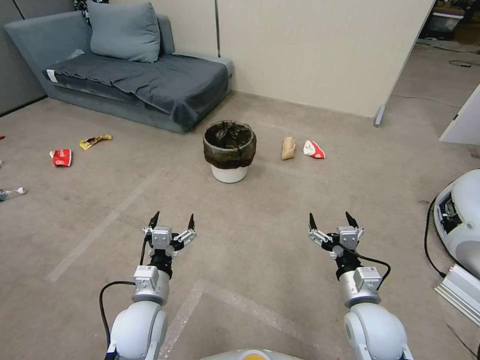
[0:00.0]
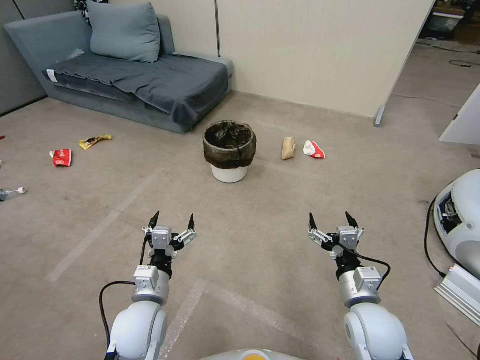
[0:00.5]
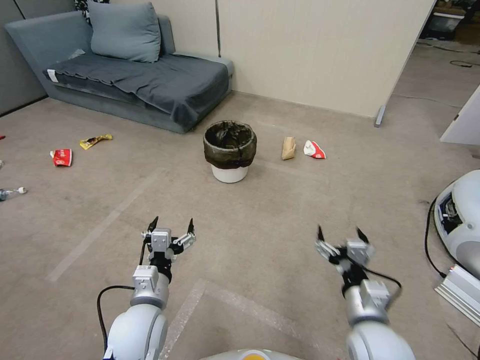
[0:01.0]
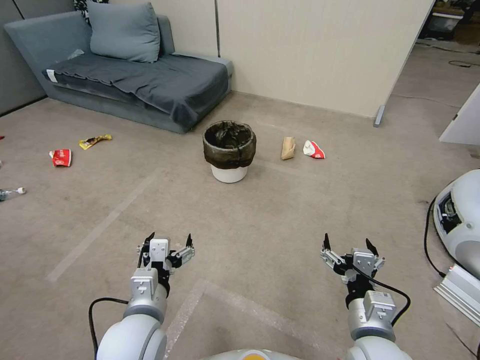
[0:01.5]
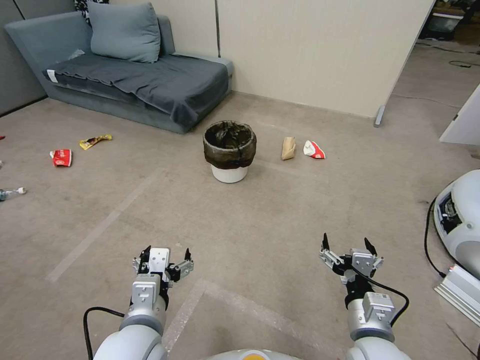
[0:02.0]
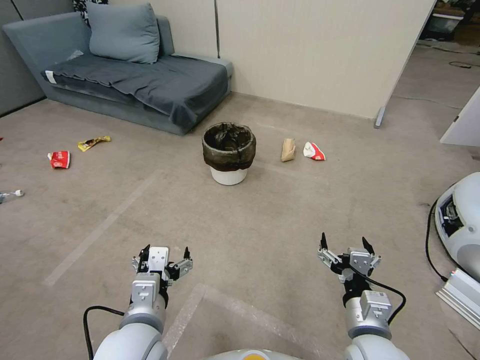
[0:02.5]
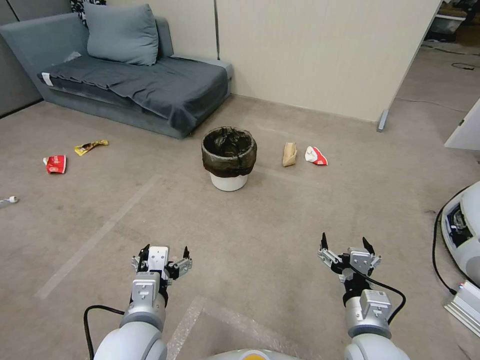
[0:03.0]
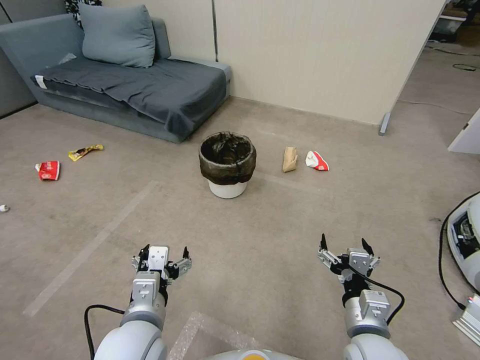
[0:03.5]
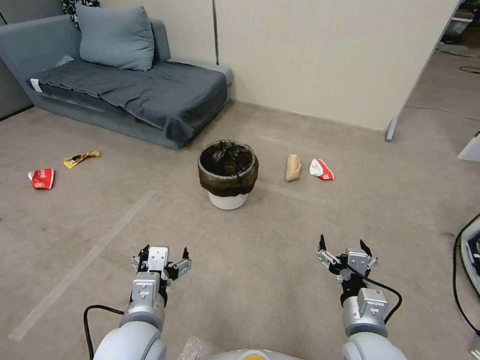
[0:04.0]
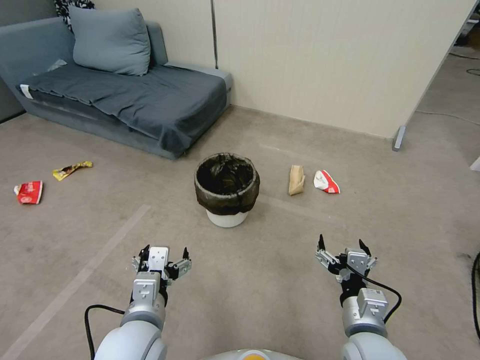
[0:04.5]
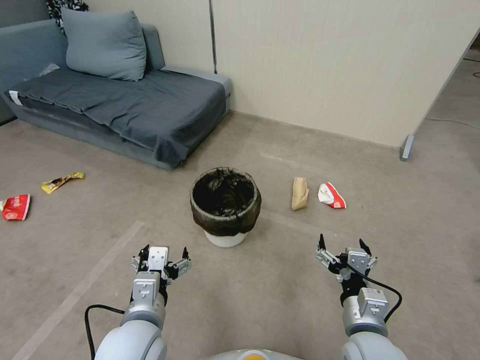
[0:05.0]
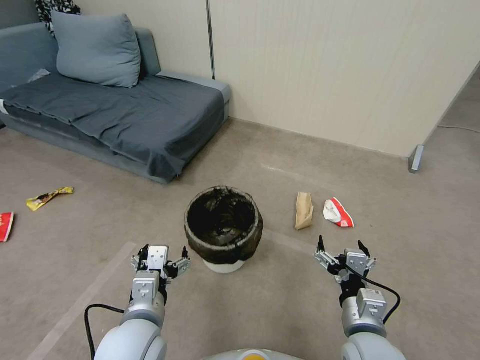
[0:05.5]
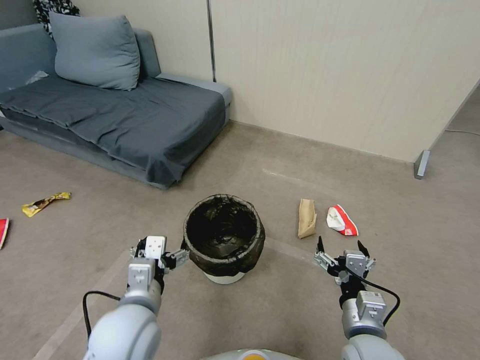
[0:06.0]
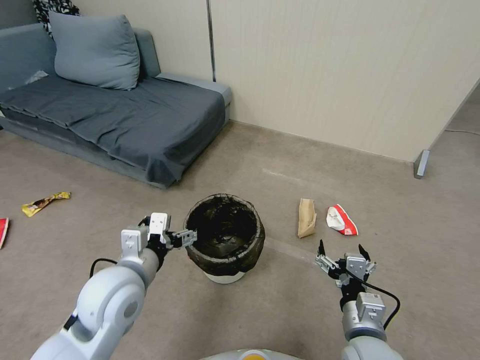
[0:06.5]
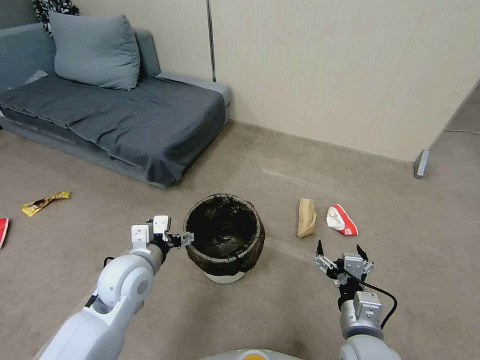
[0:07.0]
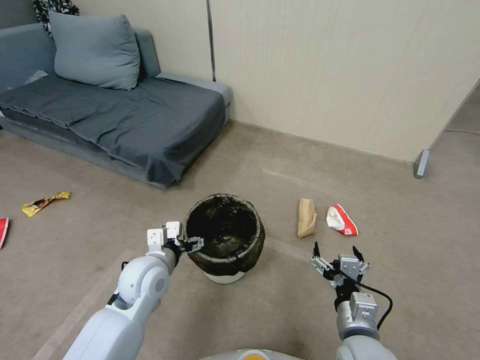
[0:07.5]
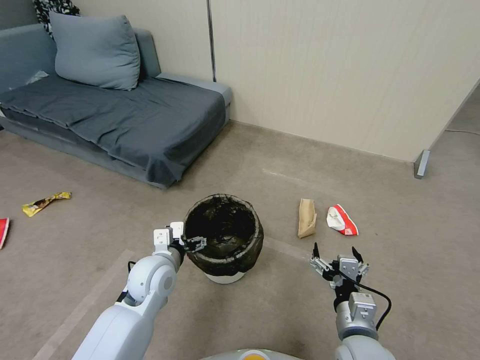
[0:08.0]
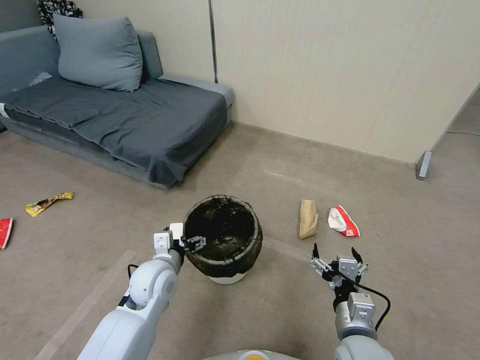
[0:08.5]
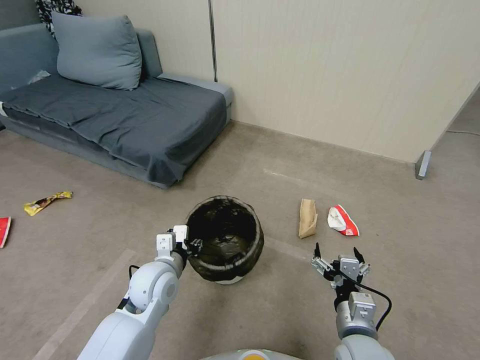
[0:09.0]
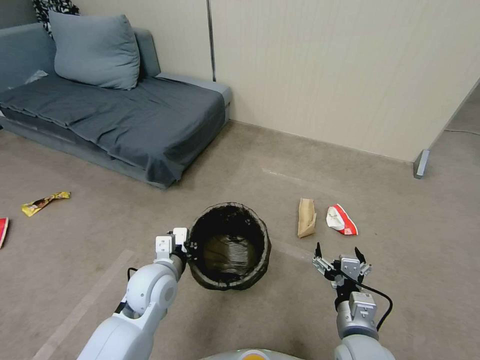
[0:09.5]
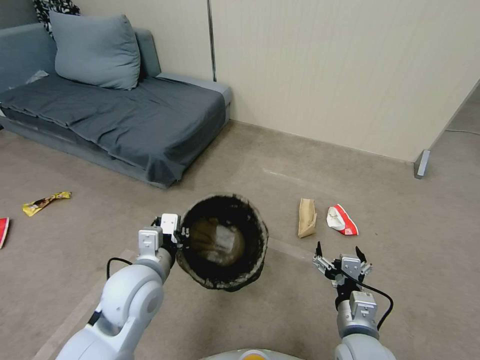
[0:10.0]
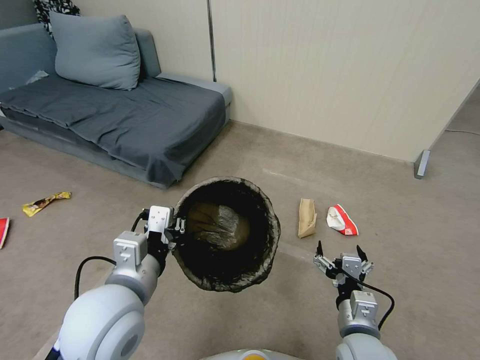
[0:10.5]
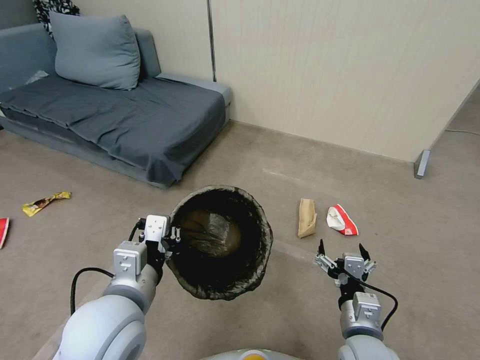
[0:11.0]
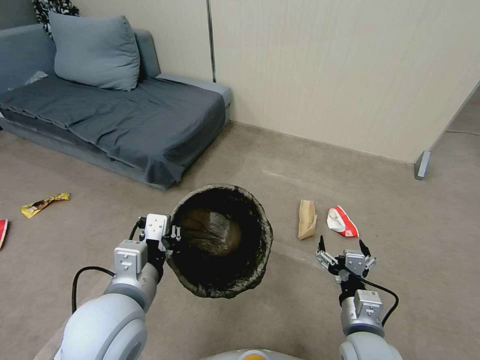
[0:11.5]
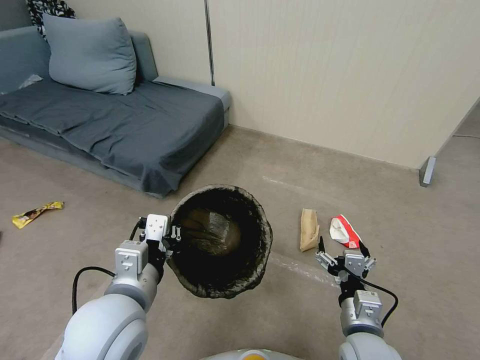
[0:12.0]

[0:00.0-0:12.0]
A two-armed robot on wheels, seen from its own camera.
Task of the whole recording: Pick up the trash bin, then pick up the garbage from the floor and place it into the trash bin.
0:06.0 to 0:08.0: The left gripper travels forward and downward by roughly 15 cm.
0:08.0 to 0:10.0: The left gripper heads upward and backward, covering about 10 cm, and closes.
0:10.0 to 0:12.0: The left gripper heads backward and upward, covering some 10 cm.

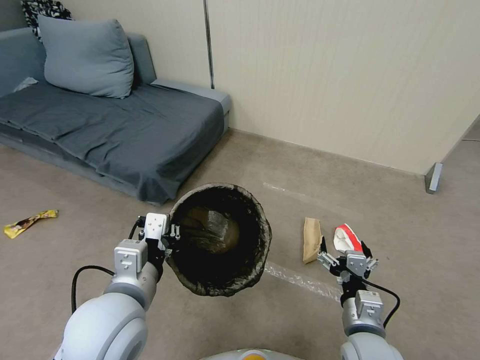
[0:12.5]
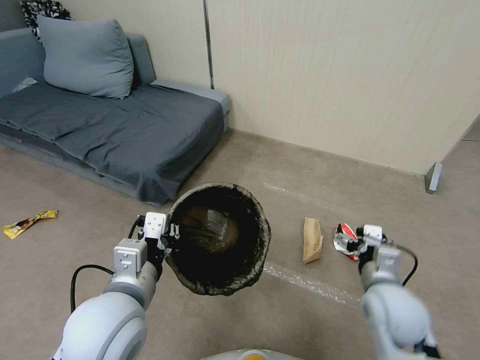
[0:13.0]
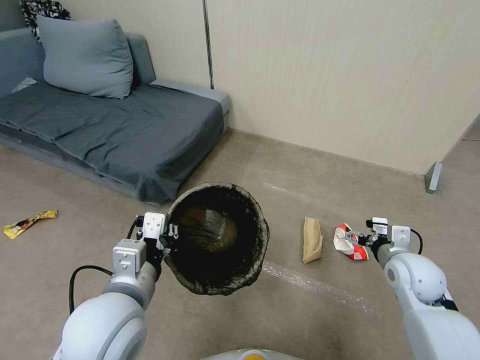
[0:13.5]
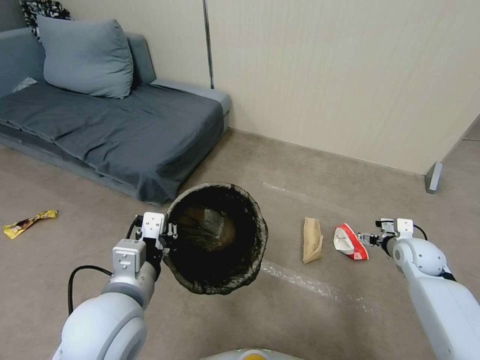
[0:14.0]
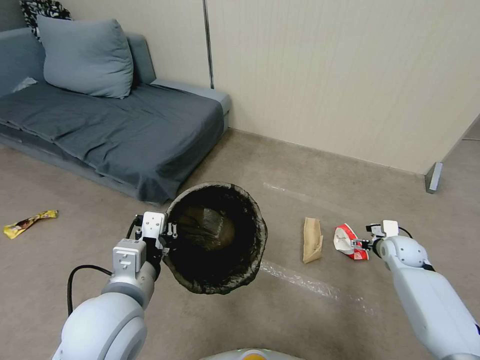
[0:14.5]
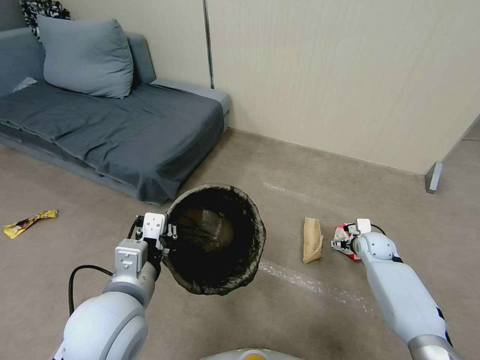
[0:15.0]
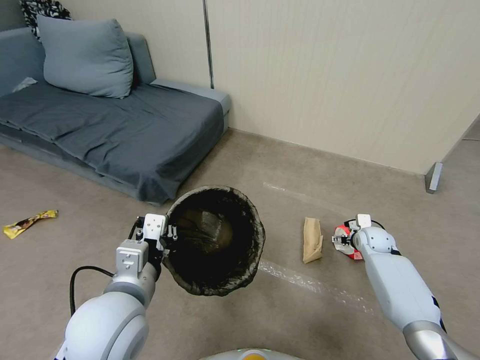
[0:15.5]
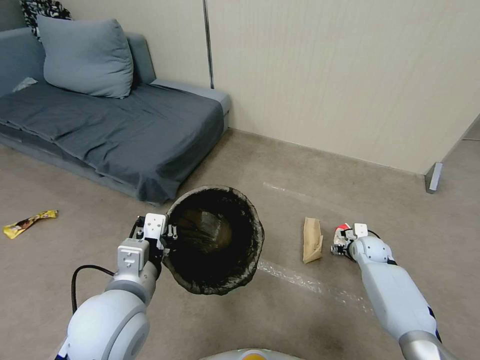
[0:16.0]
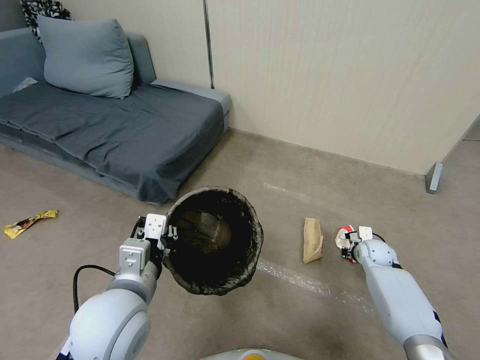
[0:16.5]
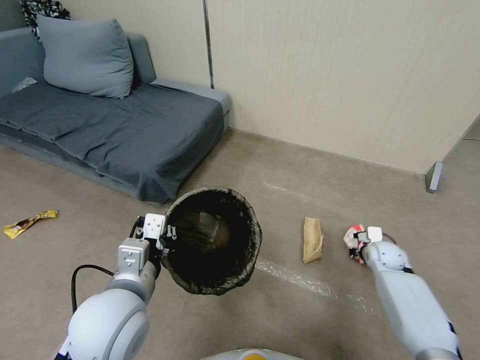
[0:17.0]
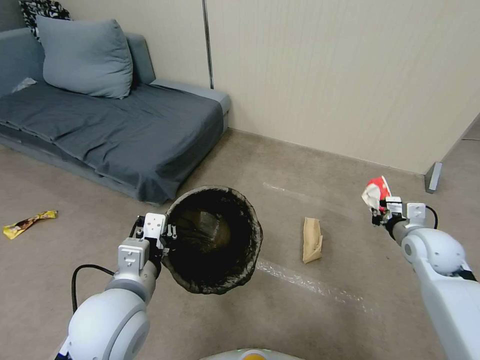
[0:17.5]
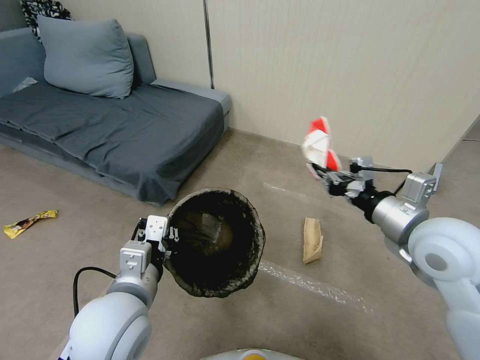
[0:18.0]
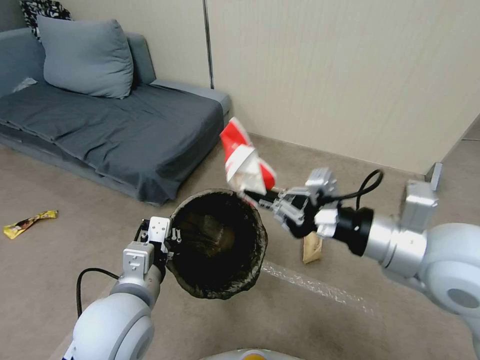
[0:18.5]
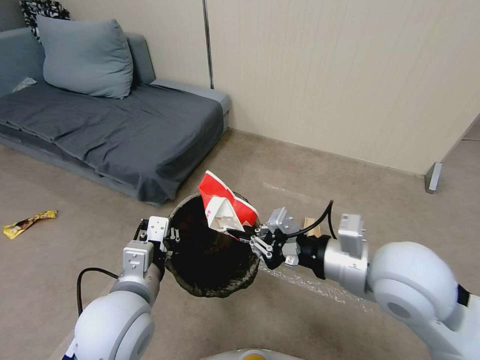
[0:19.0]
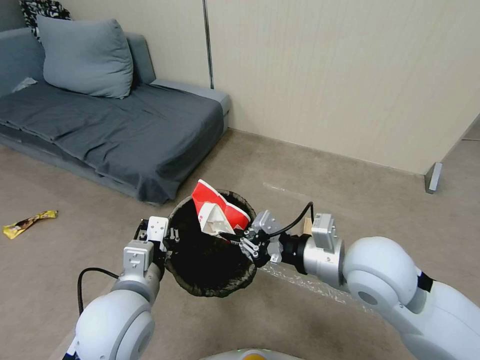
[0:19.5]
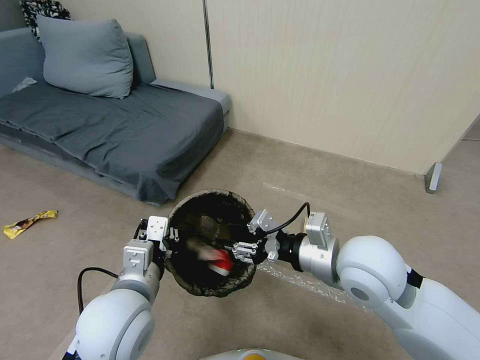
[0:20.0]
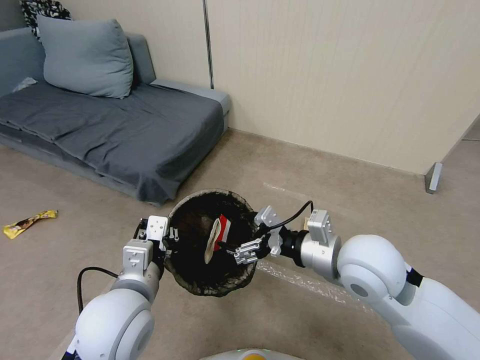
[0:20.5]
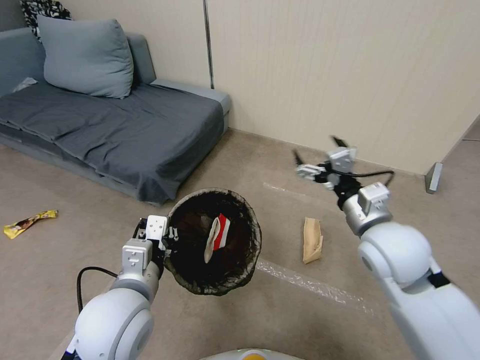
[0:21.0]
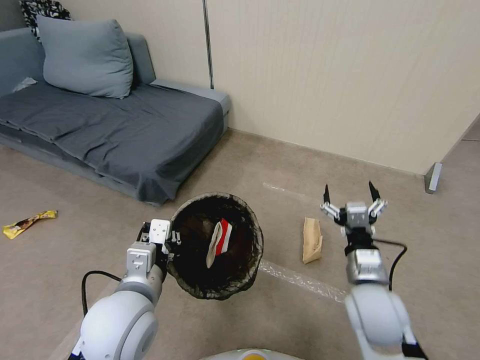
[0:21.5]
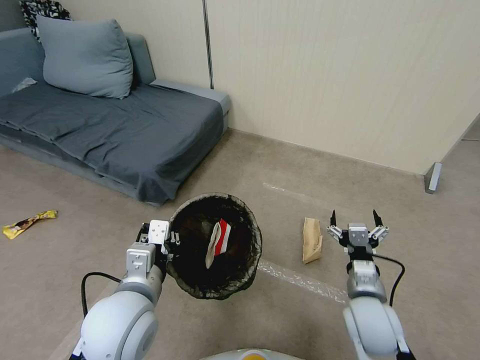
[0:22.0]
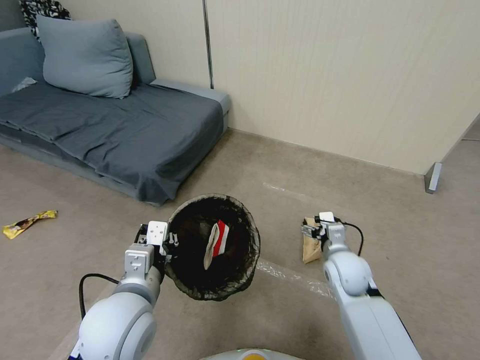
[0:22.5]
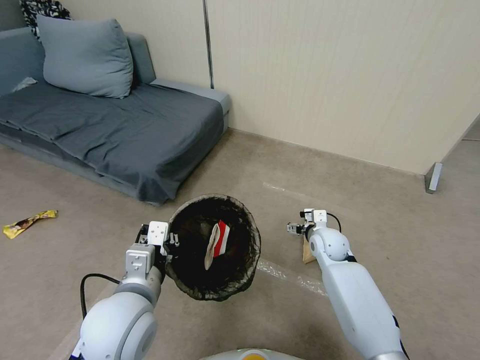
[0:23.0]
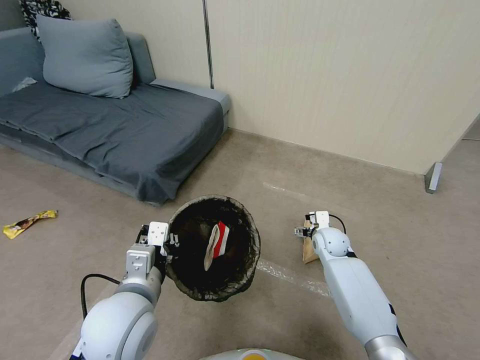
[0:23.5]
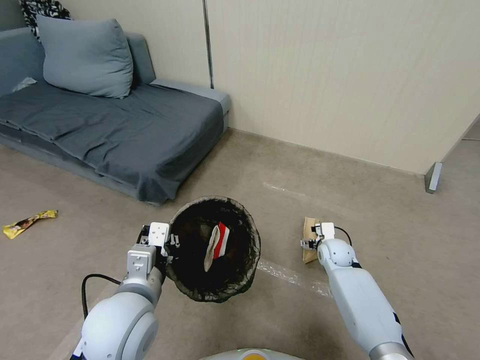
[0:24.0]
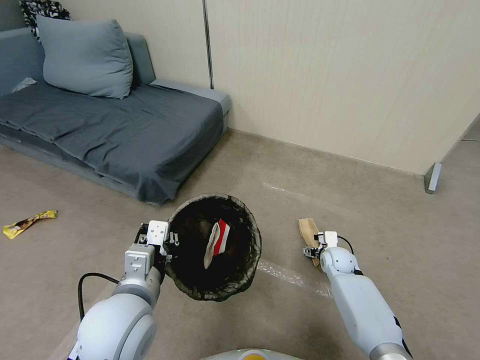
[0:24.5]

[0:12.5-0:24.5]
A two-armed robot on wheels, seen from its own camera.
Task of the whole recording: Pick up the trash bin, then pick up the garbage from the floor and place it into the trash bin.
0:12.5 to 0:14.5: The right gripper heads forward and to the right, covering roughly 30 cm.
0:14.5 to 0:16.5: The right gripper is displaced downward by roughly 5 cm, and closes.
0:16.5 to 0:18.5: The right gripper travels upward and backward by roughly 40 cm.
0:18.5 to 0:20.5: The right gripper moves downward and to the left, about 10 cm, and opens.
0:20.5 to 0:22.5: The right gripper shifts approximately 20 cm downward.
0:22.5 to 0:24.5: The right gripper goes approximately 15 cm downward and forward.

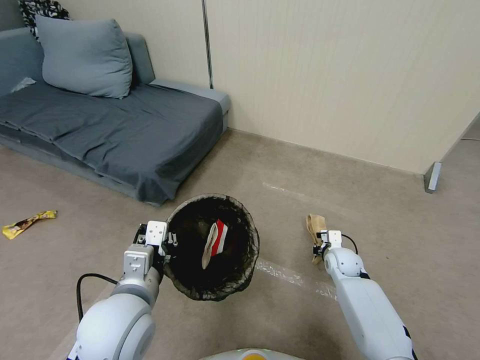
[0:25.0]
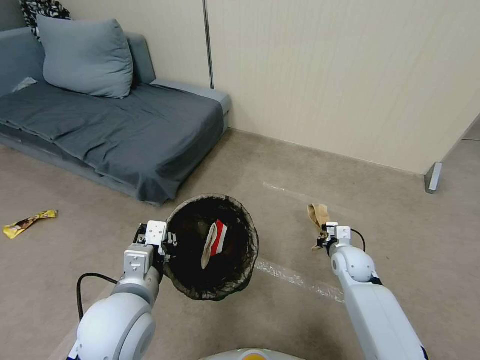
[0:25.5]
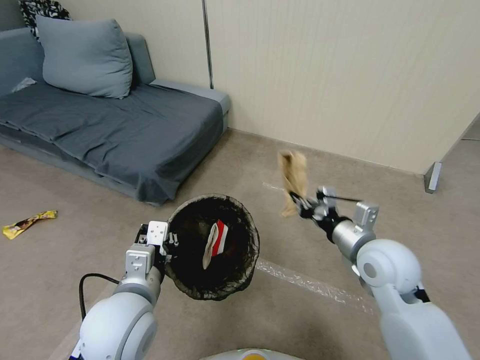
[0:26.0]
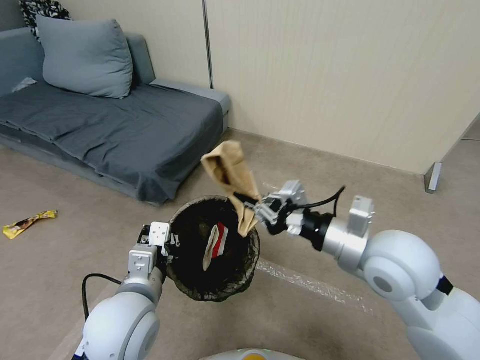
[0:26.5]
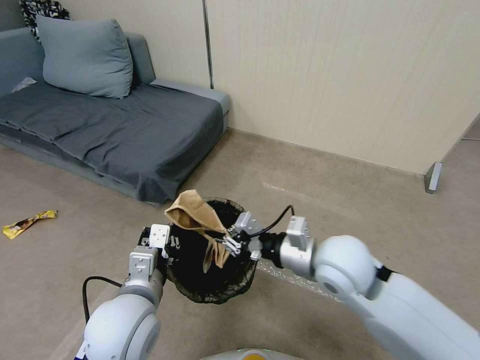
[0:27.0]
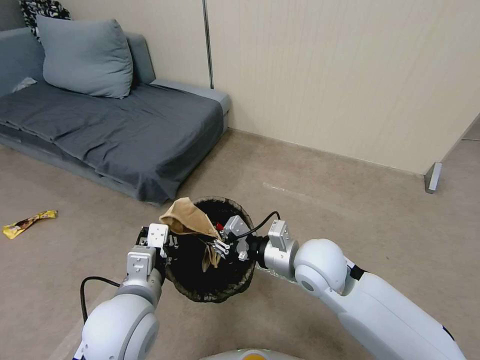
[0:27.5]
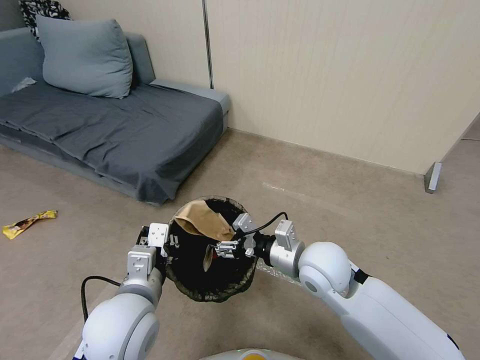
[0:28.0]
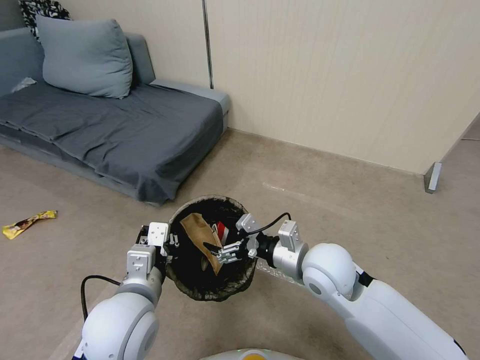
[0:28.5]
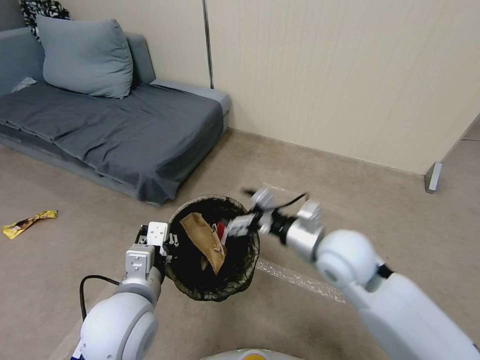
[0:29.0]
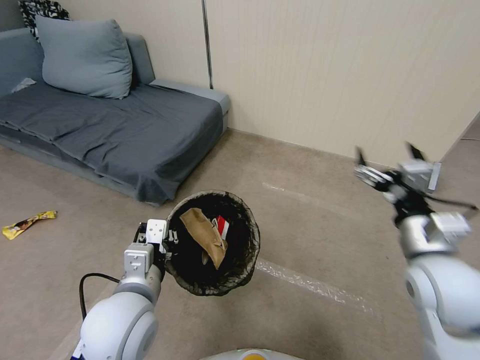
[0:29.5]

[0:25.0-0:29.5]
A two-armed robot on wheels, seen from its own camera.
Task of the whole recording: Pick up the trash bin, then pick up the garbage from the floor and place it into the trash bin.
0:25.0 to 0:27.0: The right gripper shifts about 35 cm upward, to the left and backward.
0:27.0 to 0:29.5: The right gripper goes some 15 cm to the right, and opens.
